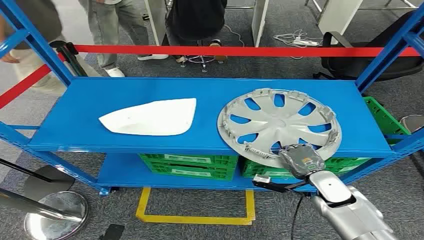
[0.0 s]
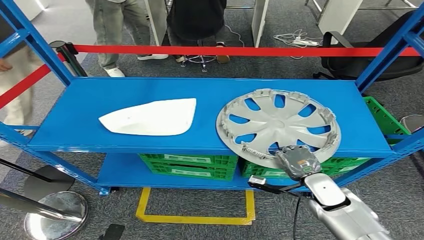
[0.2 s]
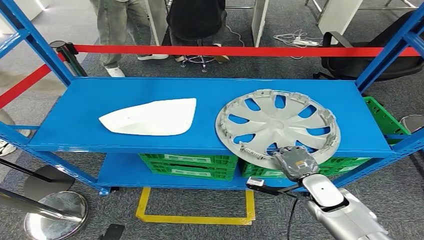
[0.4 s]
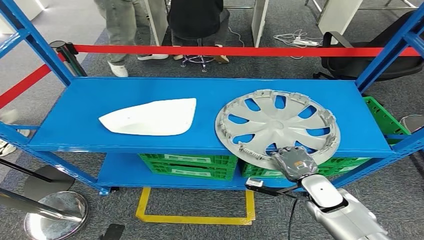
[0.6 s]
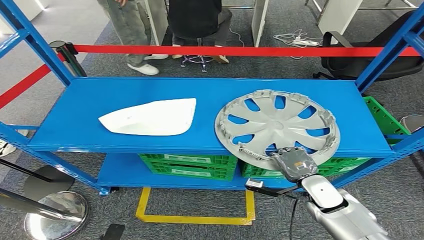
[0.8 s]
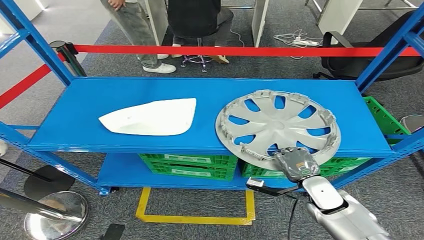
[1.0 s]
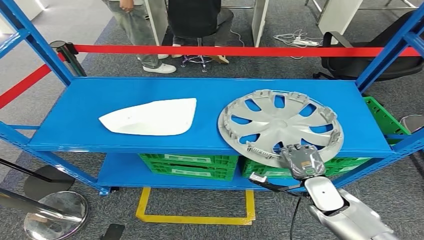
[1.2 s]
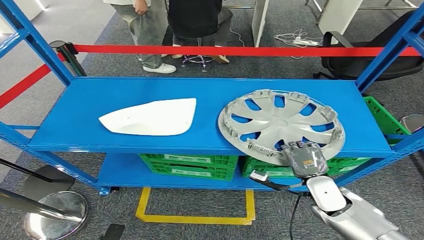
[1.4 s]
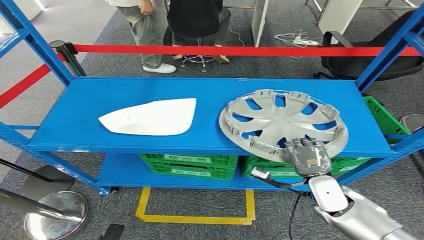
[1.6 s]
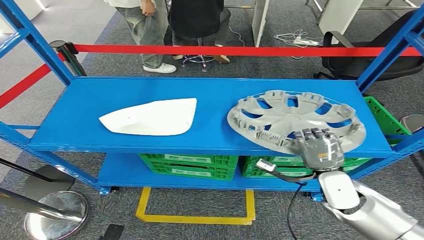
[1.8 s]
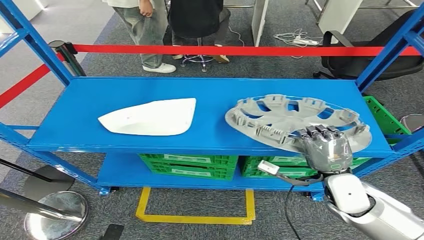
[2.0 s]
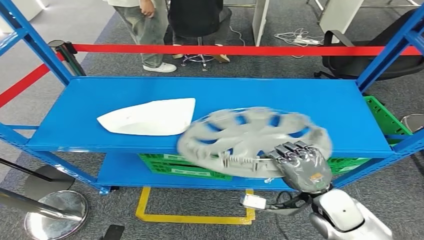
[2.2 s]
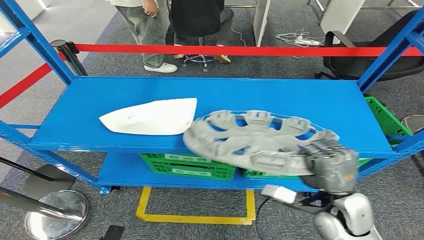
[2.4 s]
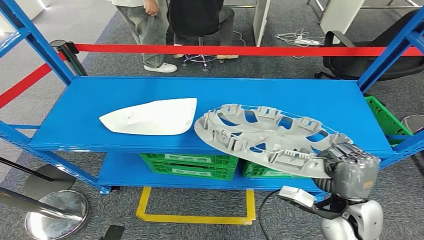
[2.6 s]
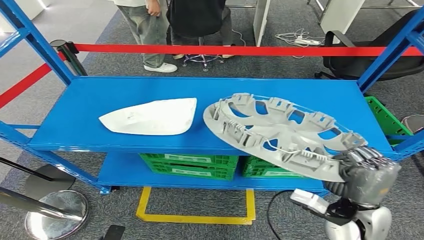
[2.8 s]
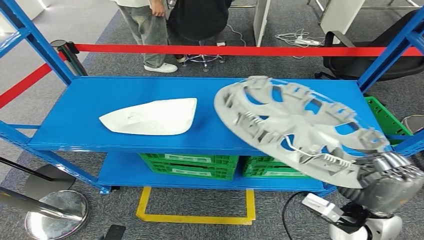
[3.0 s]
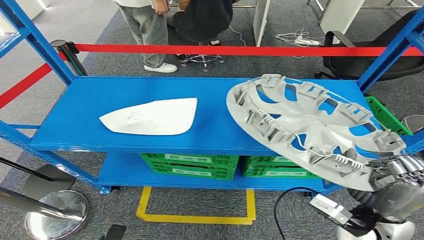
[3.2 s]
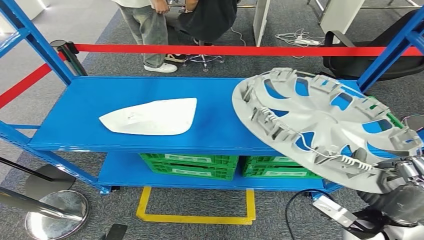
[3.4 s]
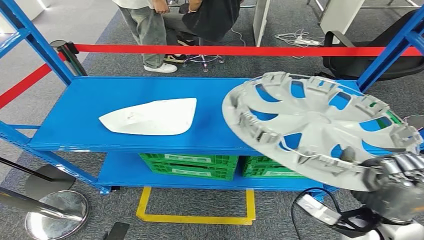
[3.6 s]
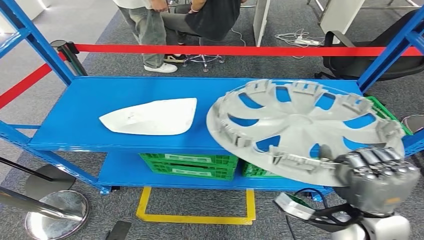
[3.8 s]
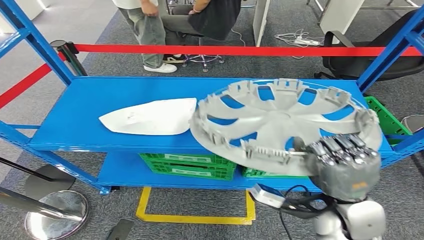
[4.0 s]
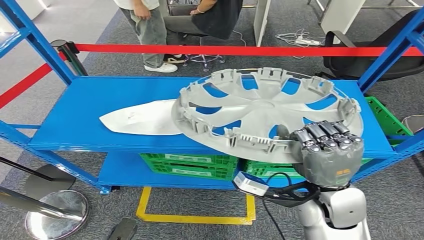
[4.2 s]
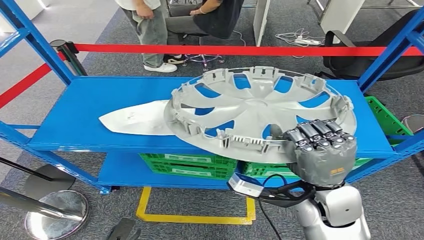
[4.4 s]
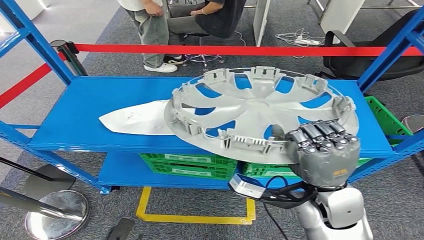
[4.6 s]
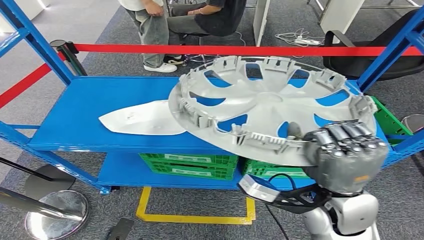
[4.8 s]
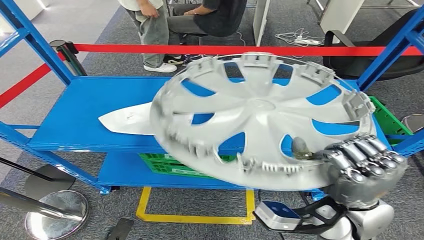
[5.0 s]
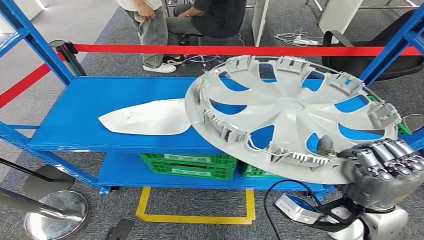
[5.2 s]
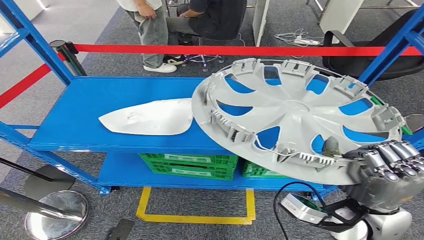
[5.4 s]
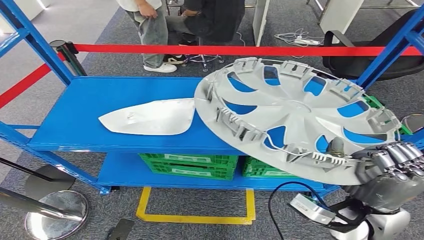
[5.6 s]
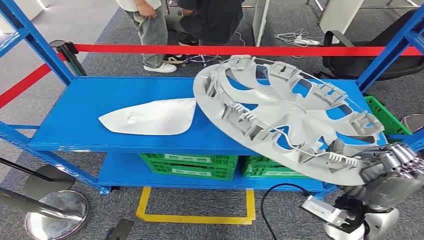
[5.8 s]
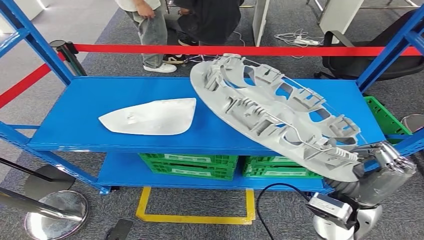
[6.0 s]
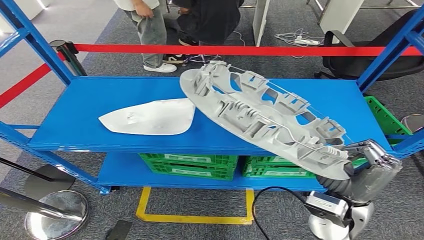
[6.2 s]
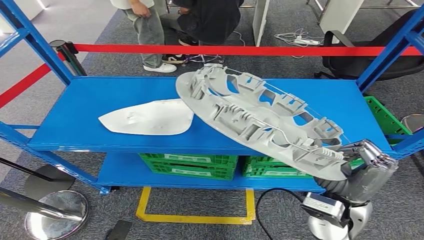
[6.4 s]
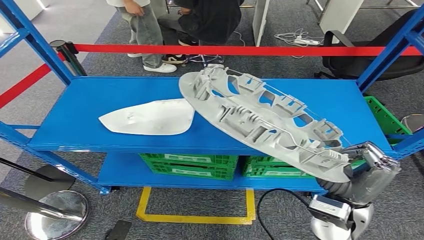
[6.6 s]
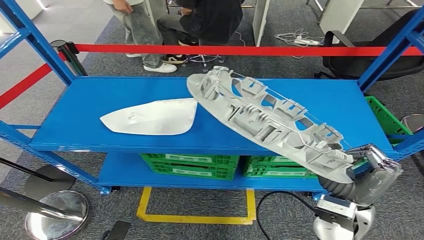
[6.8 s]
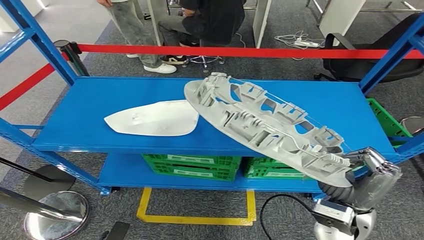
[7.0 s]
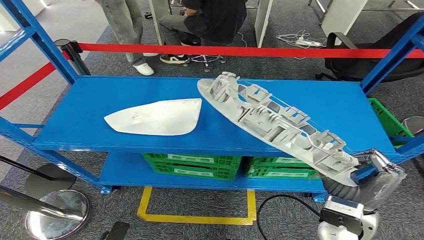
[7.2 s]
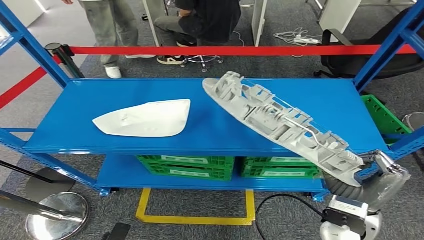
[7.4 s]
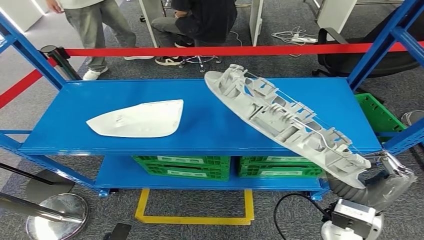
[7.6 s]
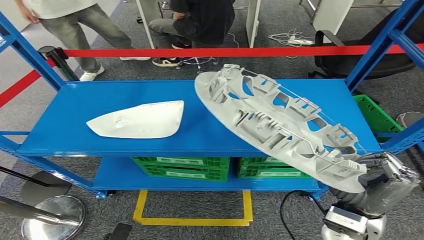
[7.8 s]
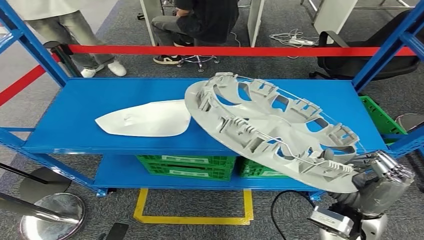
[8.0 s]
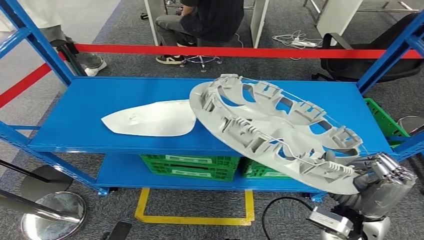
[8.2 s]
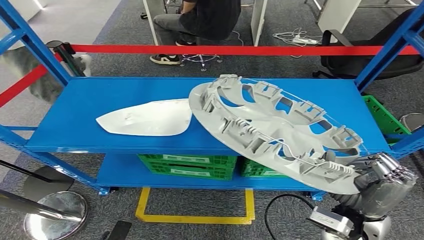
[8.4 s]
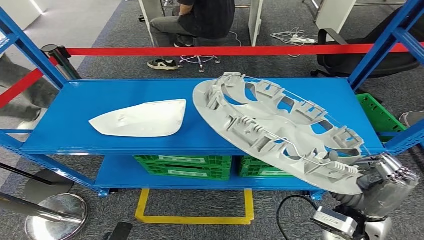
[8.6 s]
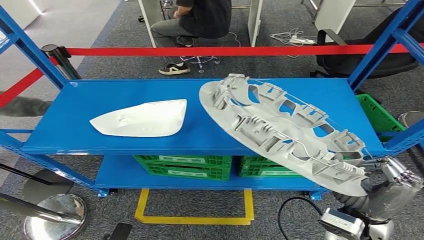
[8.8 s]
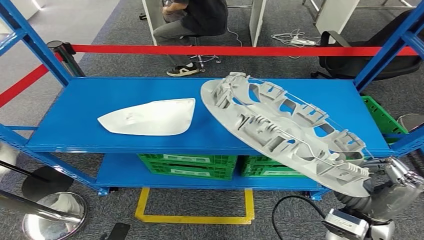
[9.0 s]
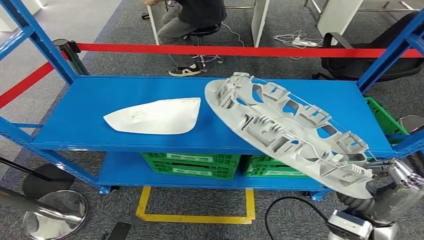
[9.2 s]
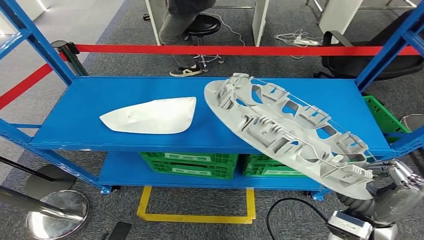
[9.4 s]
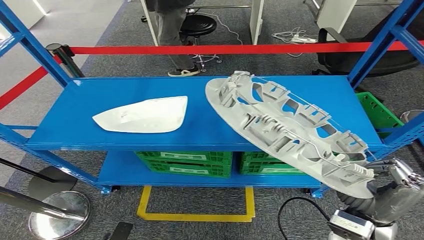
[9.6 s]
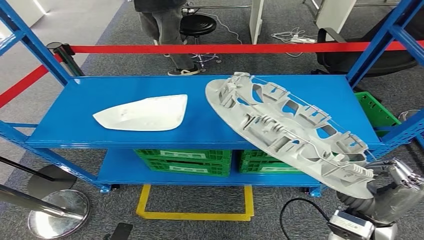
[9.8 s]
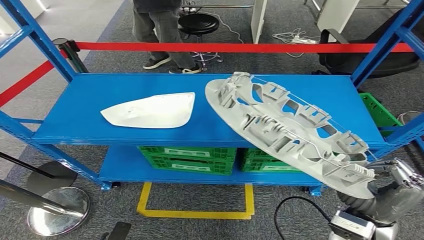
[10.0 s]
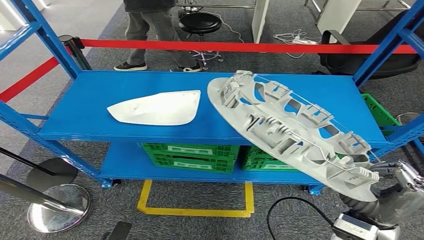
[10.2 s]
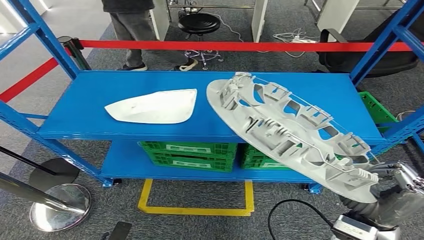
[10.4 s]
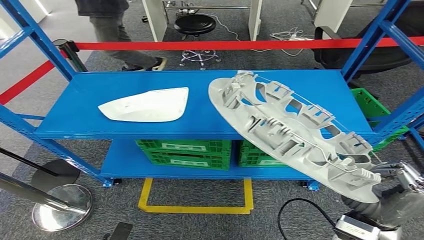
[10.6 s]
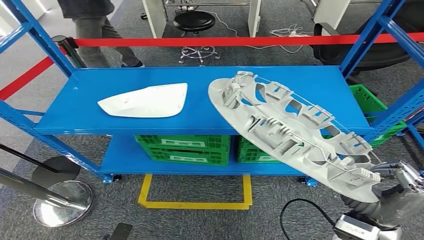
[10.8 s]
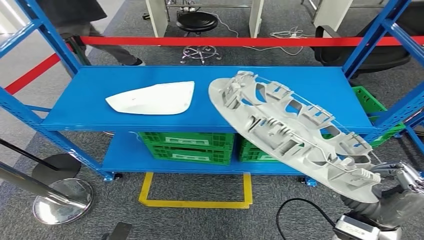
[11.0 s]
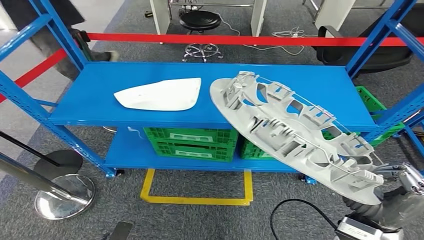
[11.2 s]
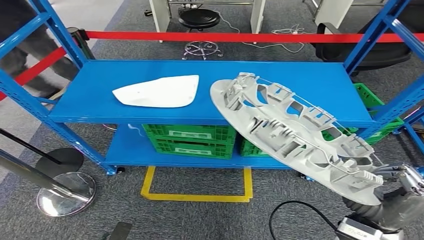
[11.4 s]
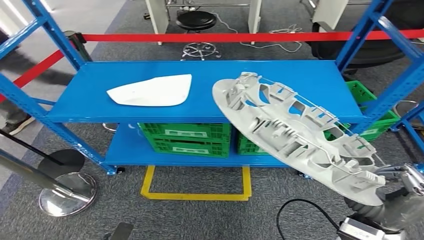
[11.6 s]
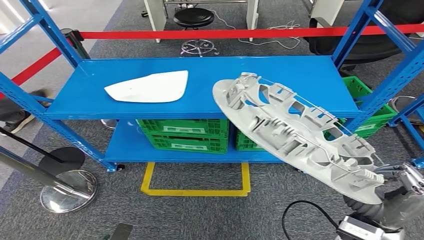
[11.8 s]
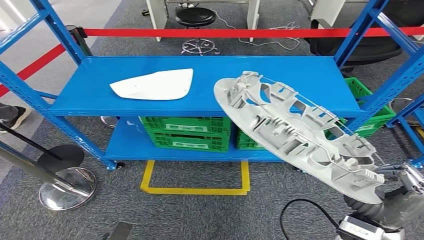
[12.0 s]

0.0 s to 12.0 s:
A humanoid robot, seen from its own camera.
Step, 0.0 to 3.6 s: Pick up the small component from the shelf.

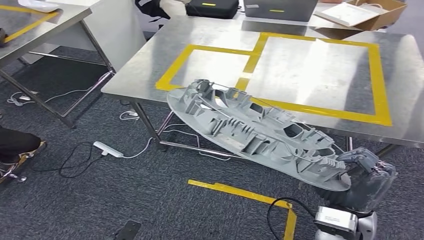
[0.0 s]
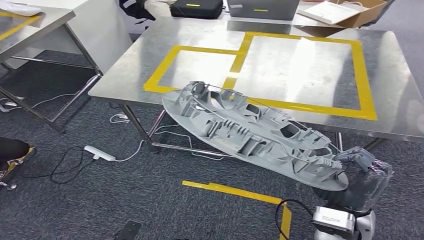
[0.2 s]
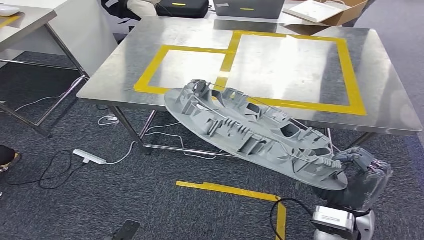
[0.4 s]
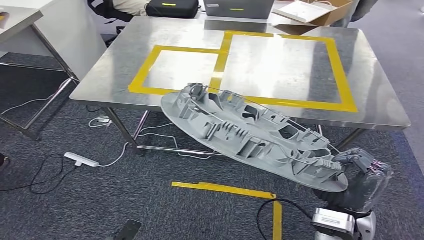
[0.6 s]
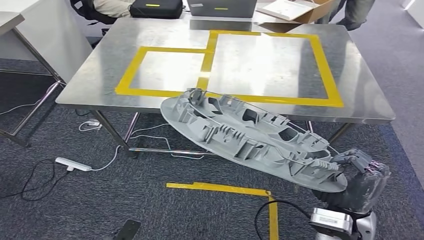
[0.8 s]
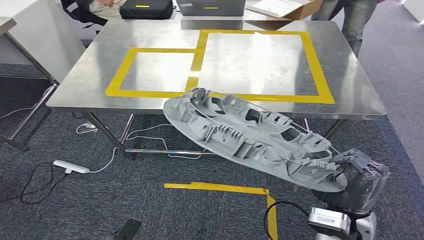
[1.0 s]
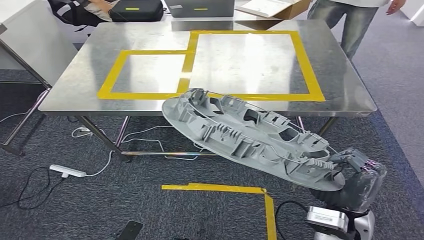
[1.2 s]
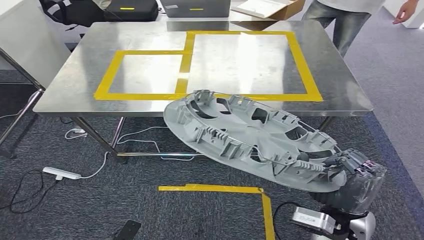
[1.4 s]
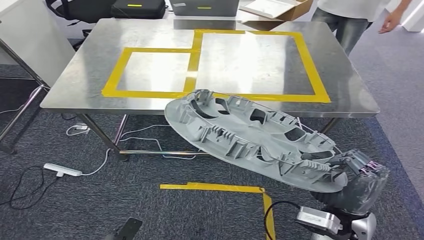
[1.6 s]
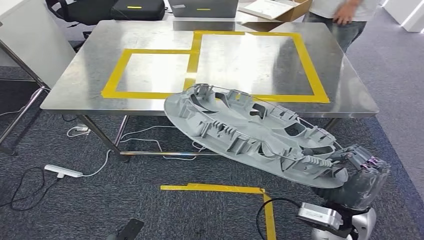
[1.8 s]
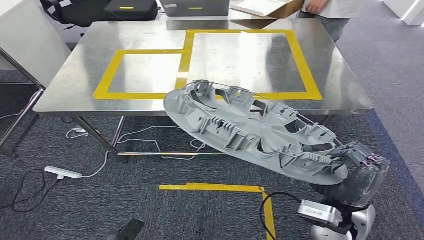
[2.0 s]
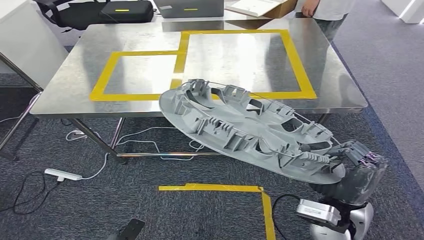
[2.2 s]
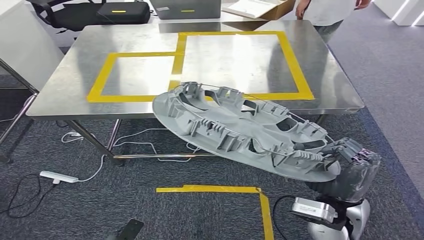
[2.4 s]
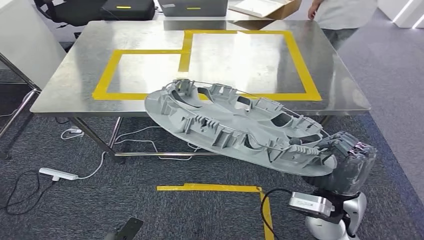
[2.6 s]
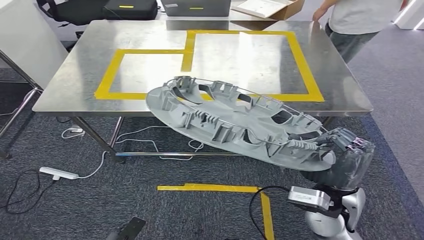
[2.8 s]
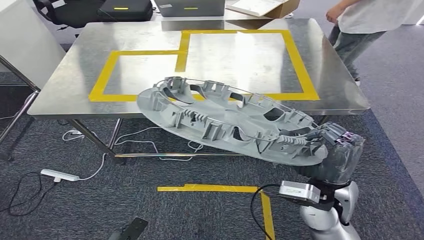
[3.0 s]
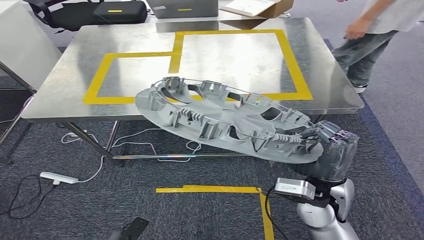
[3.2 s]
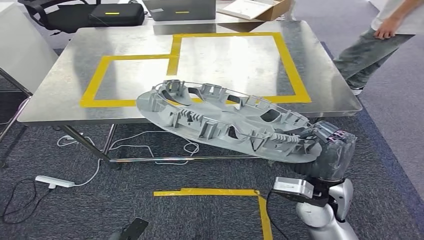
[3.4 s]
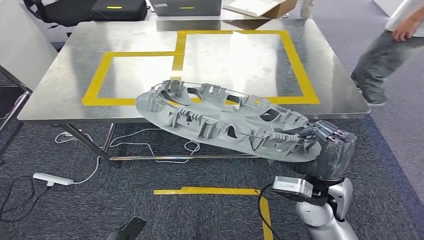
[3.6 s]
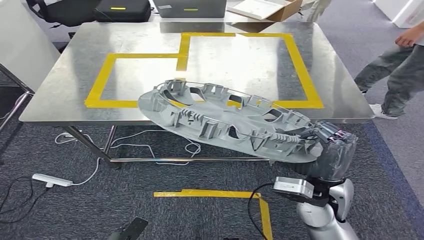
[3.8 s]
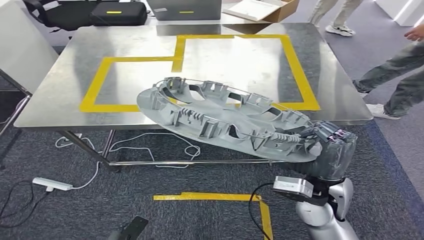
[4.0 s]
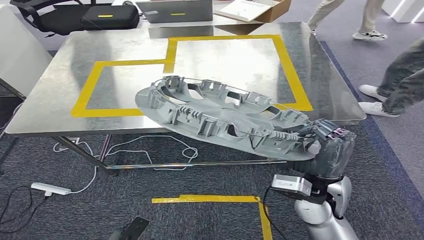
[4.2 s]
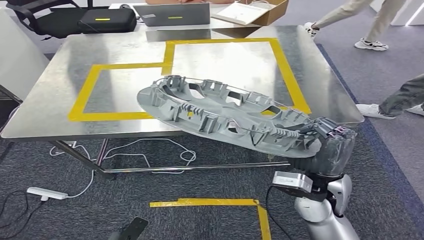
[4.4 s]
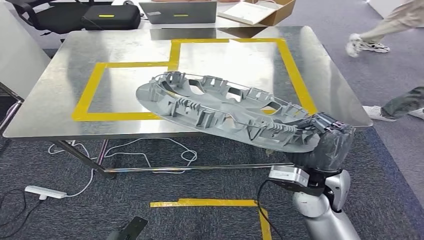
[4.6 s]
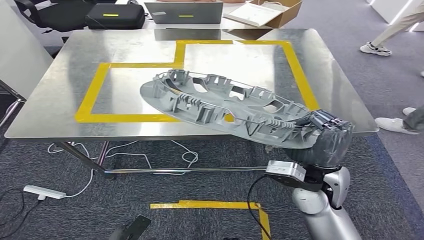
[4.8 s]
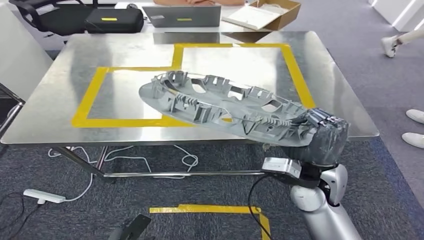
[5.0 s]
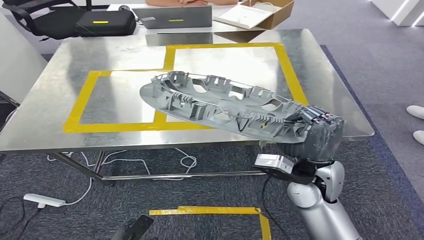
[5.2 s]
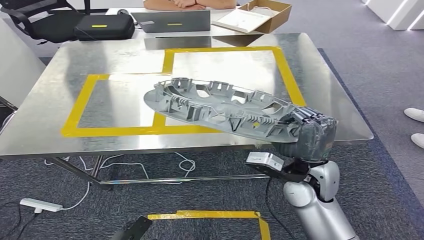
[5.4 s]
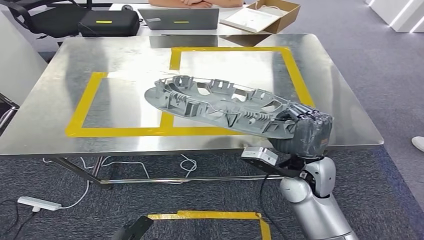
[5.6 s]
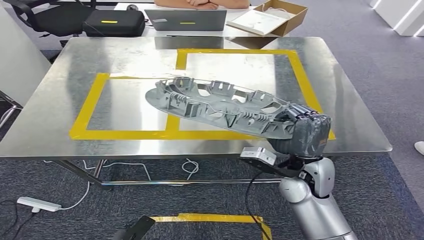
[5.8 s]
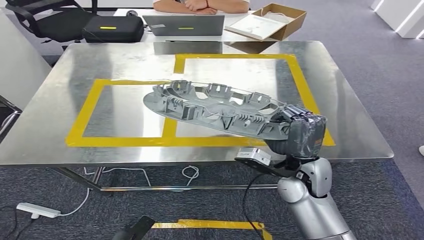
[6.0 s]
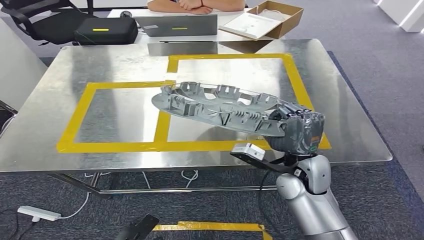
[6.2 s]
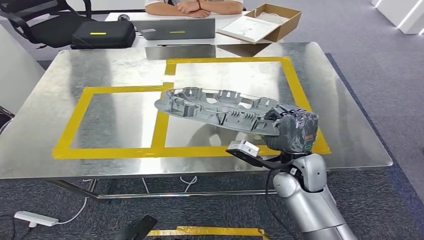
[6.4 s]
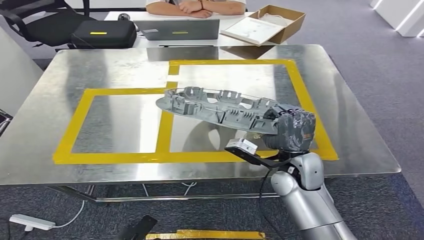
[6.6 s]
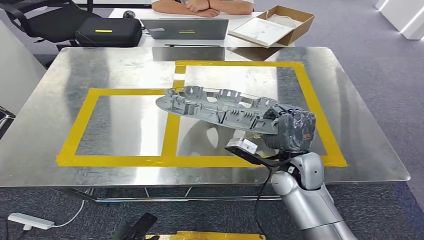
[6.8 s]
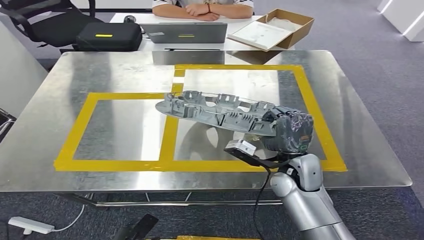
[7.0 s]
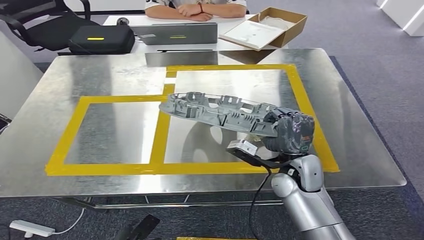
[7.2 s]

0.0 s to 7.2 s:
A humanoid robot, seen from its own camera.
Step, 0.0 to 2.0 s: Move the small component to the workbench.
